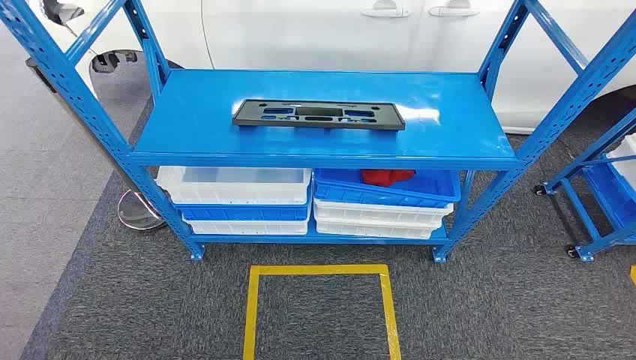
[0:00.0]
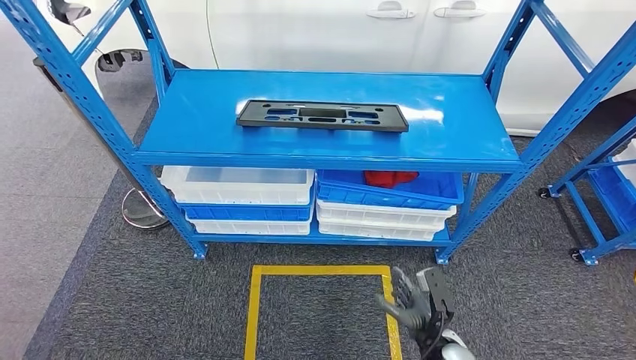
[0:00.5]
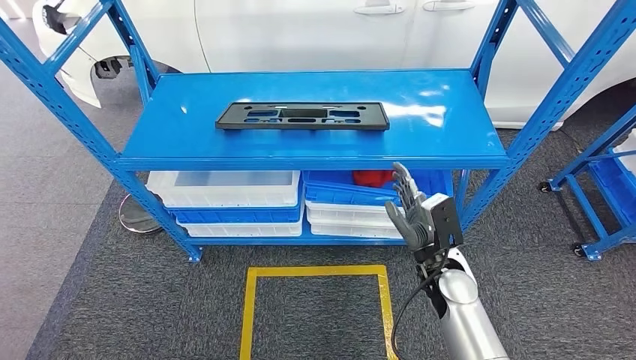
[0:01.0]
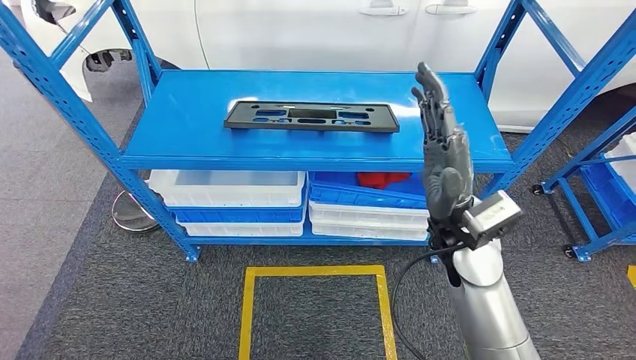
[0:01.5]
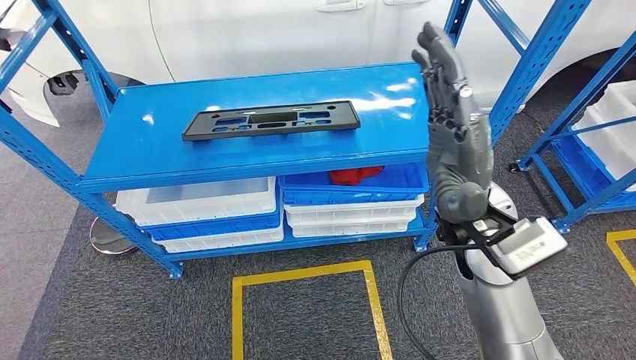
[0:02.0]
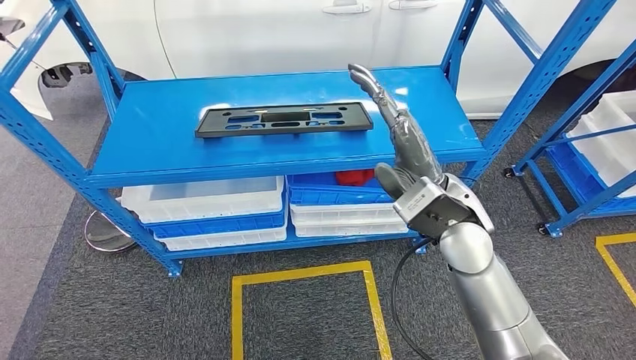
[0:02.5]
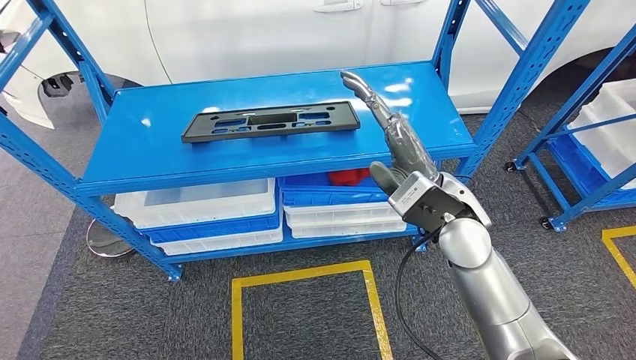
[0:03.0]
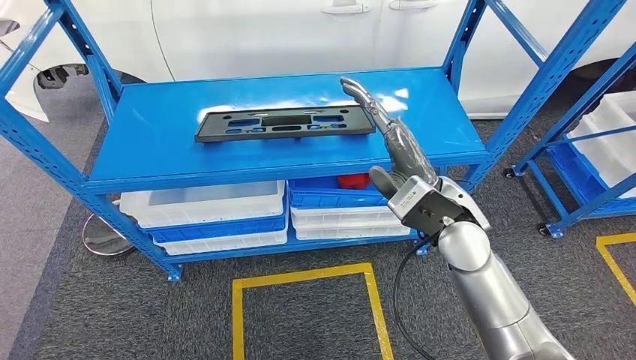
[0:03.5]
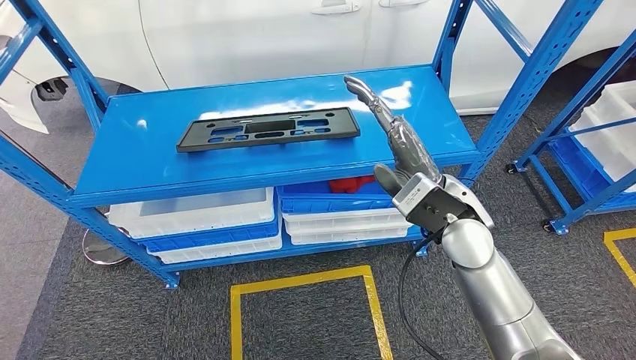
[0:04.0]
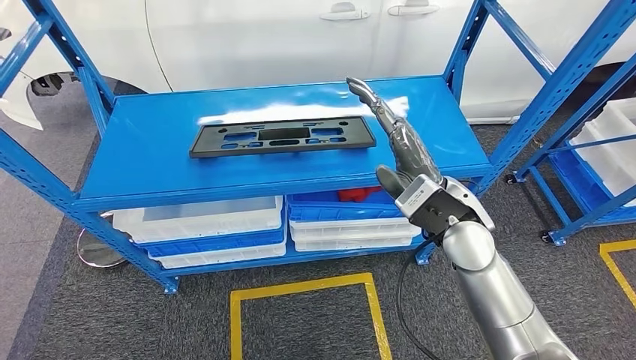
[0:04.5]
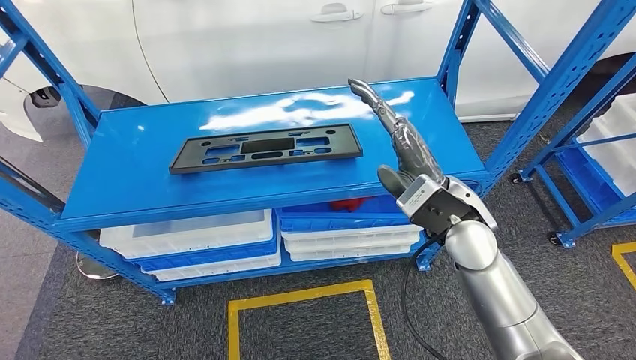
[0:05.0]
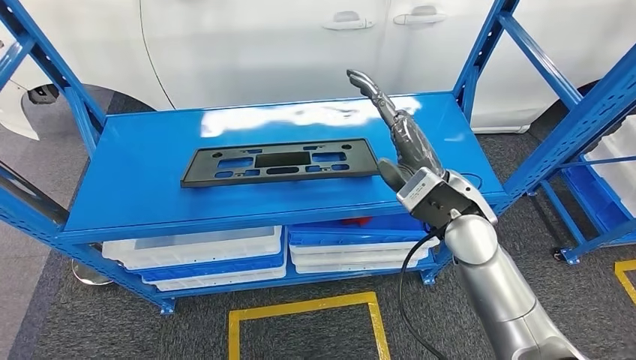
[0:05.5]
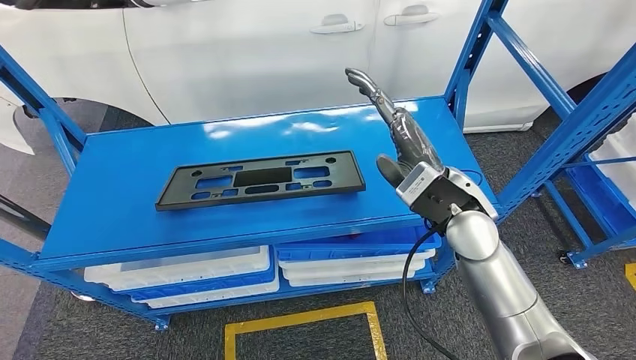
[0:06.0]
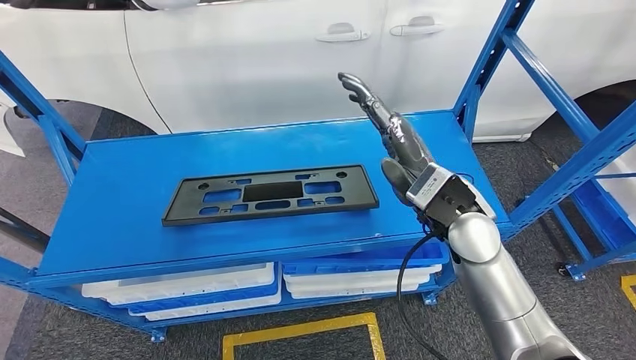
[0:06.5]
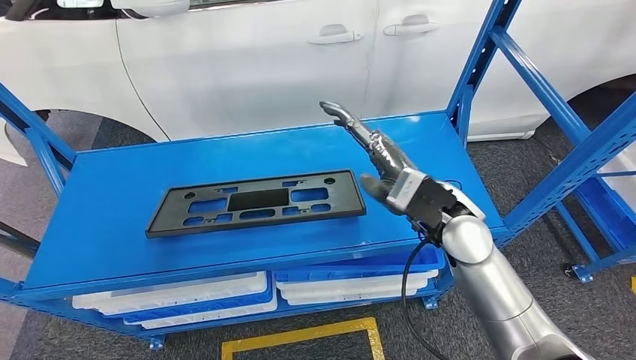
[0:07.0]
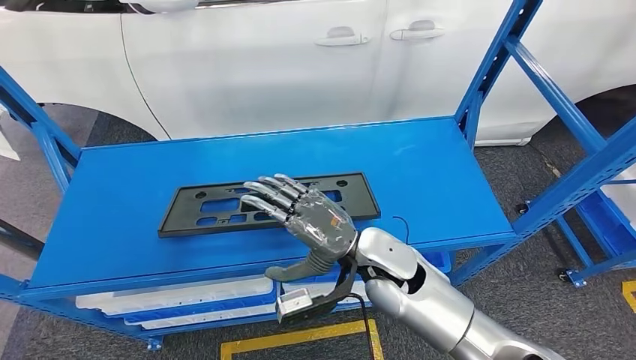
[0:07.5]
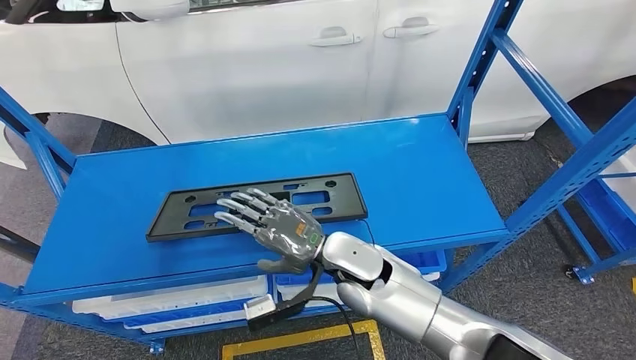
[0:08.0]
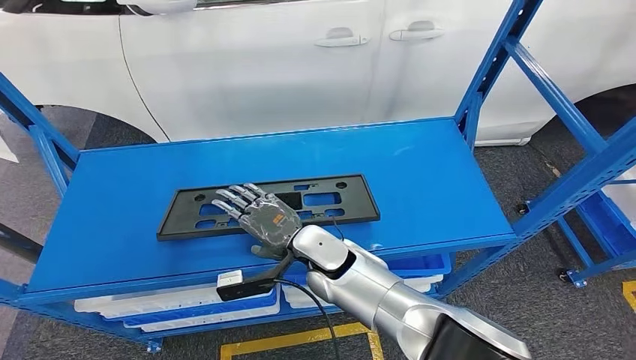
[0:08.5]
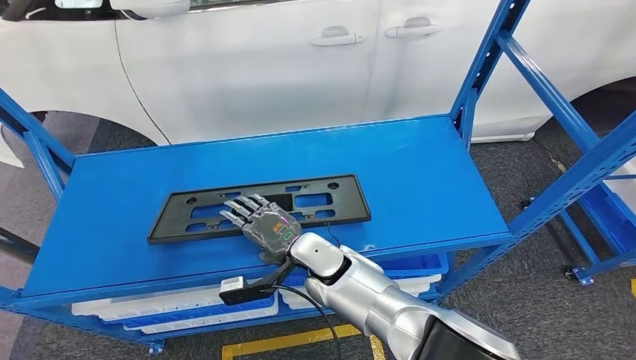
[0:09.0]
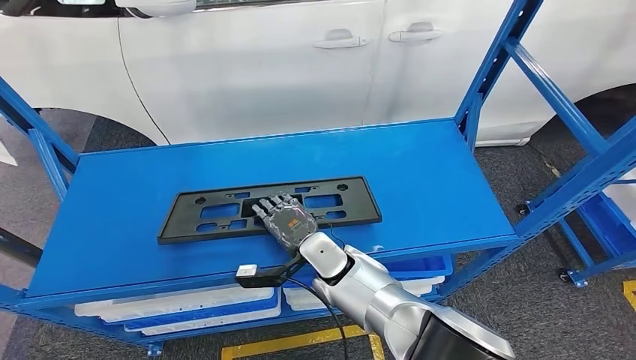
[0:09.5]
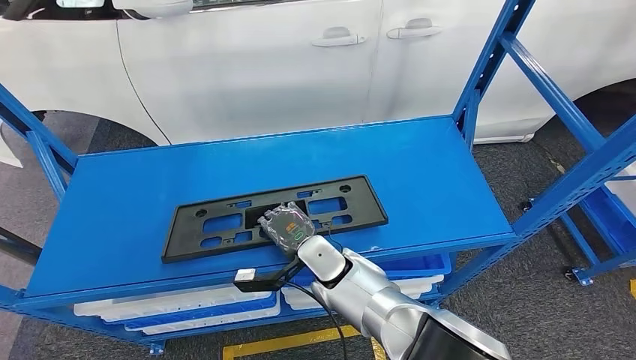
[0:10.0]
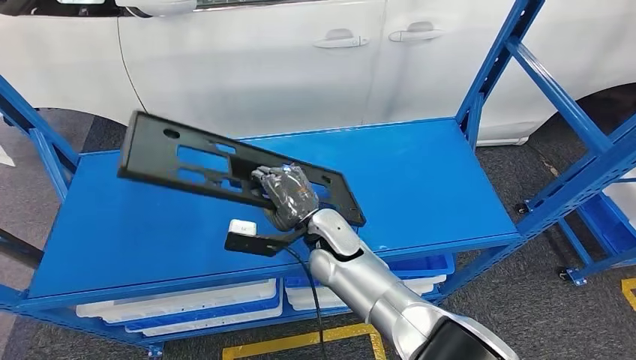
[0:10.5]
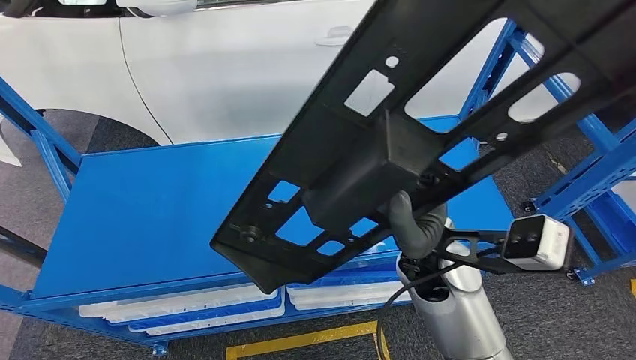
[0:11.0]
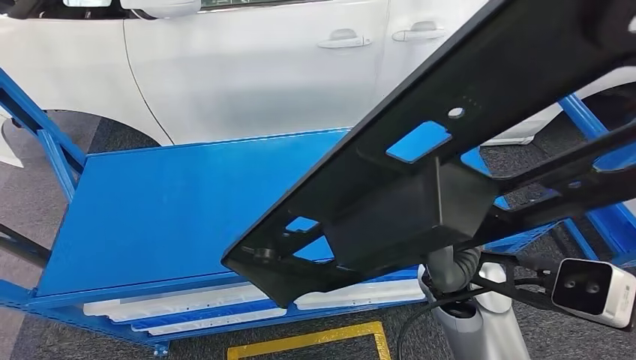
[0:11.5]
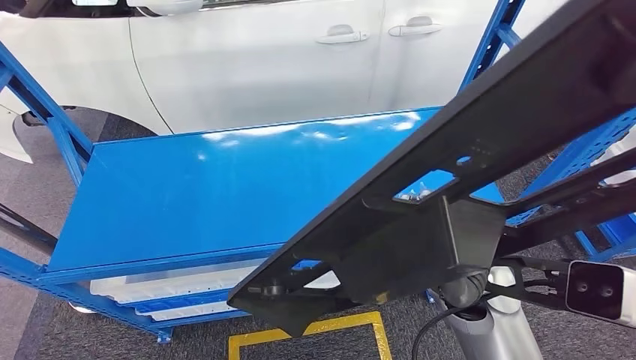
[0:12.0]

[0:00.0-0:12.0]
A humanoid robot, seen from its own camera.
0:08.0 to 0:10.0: The right hand moves downward, approximately 5 cm.

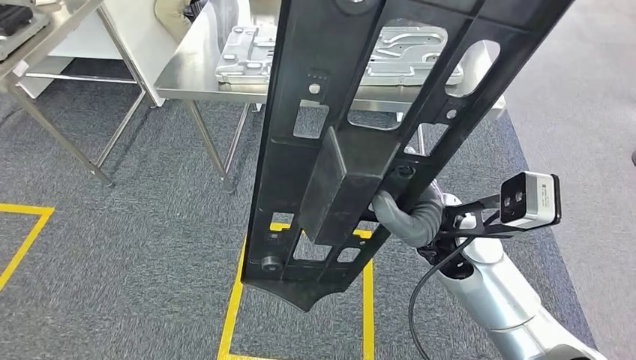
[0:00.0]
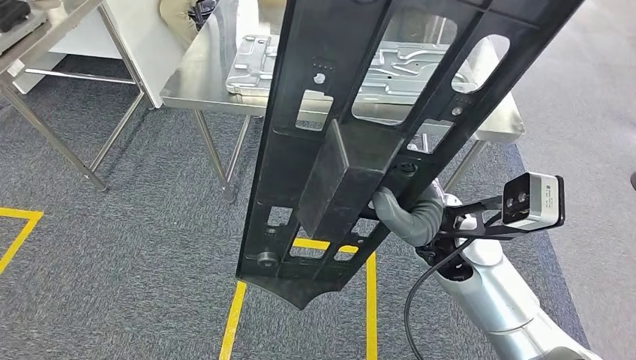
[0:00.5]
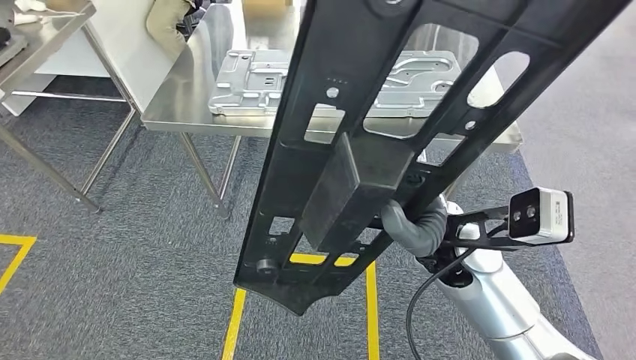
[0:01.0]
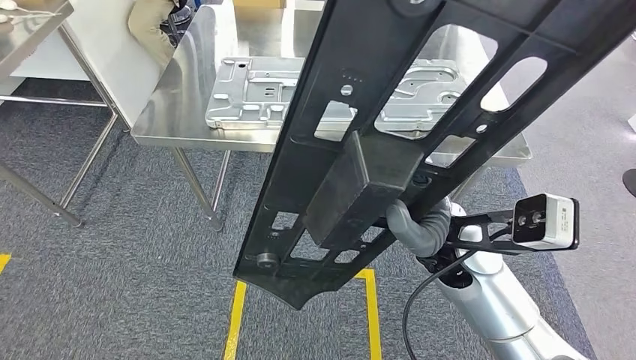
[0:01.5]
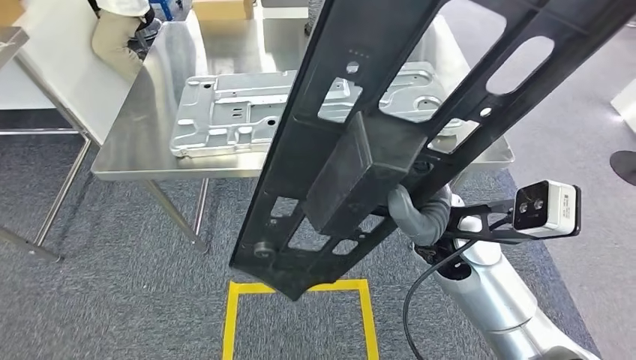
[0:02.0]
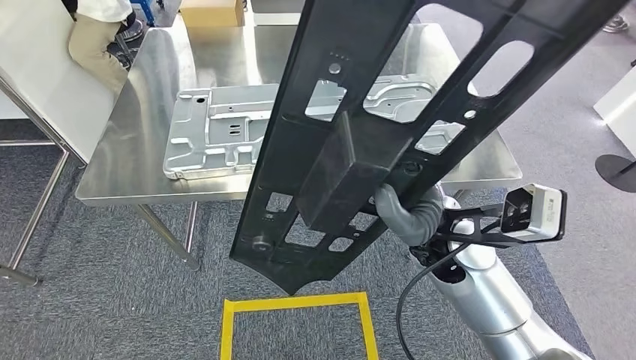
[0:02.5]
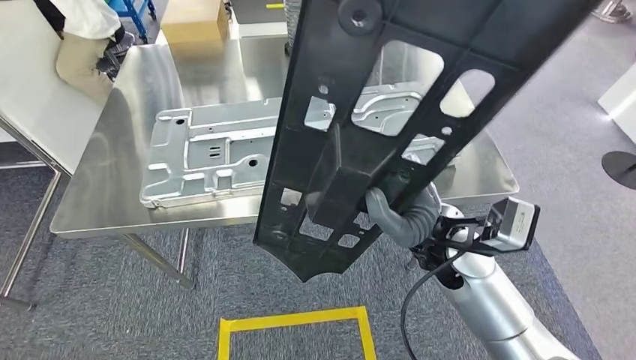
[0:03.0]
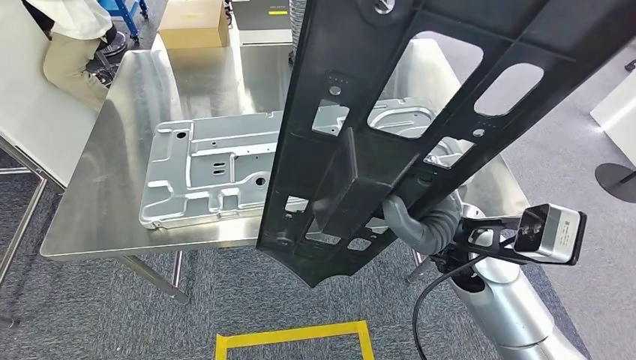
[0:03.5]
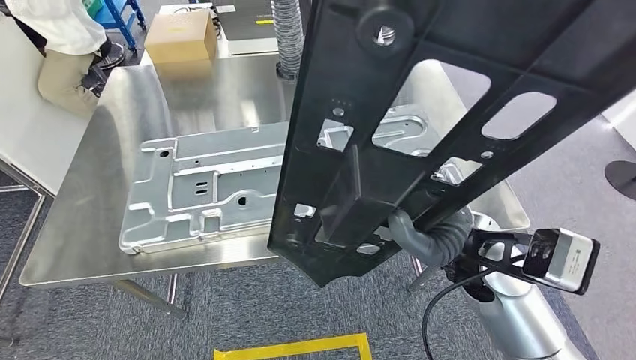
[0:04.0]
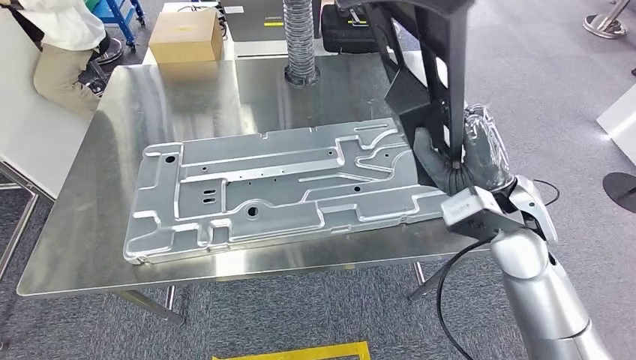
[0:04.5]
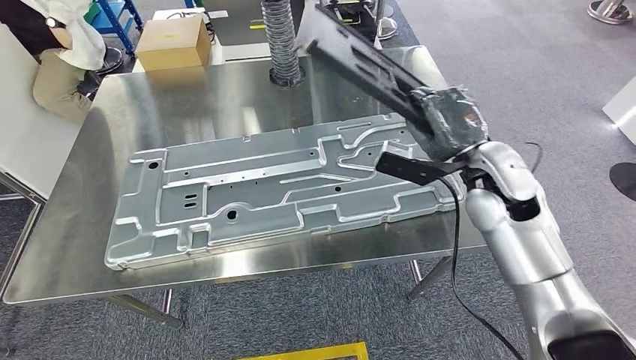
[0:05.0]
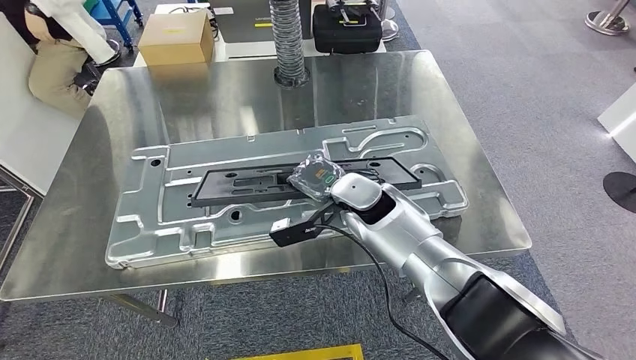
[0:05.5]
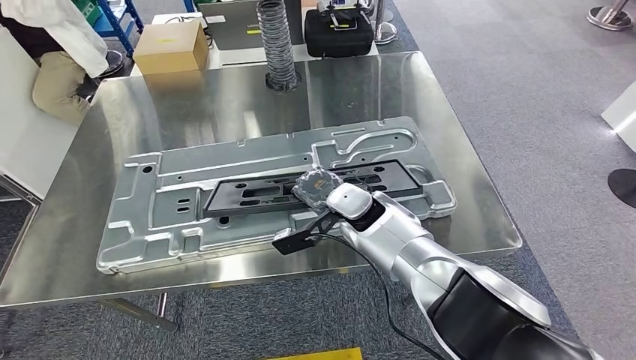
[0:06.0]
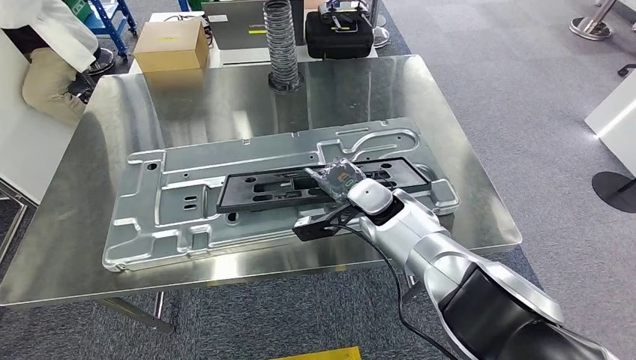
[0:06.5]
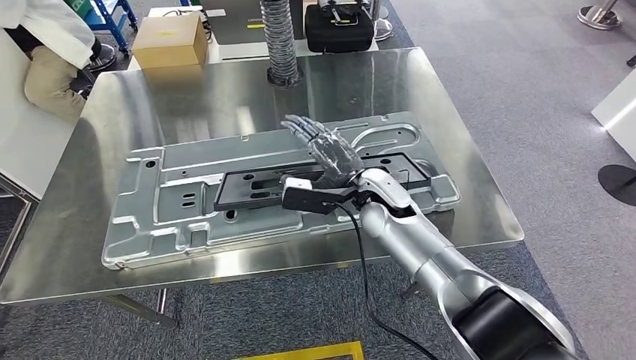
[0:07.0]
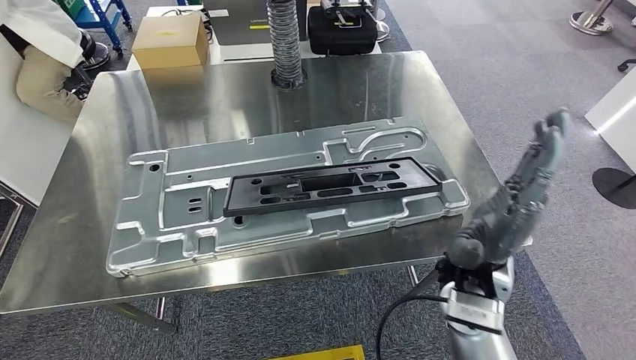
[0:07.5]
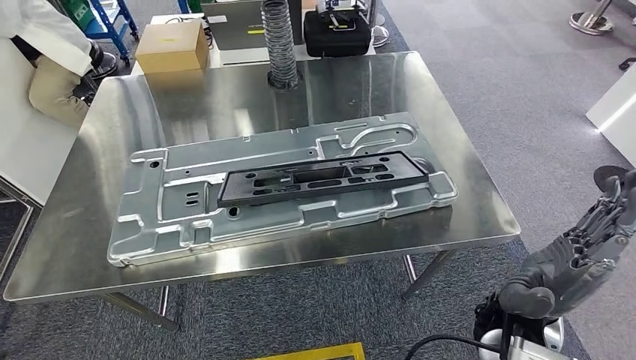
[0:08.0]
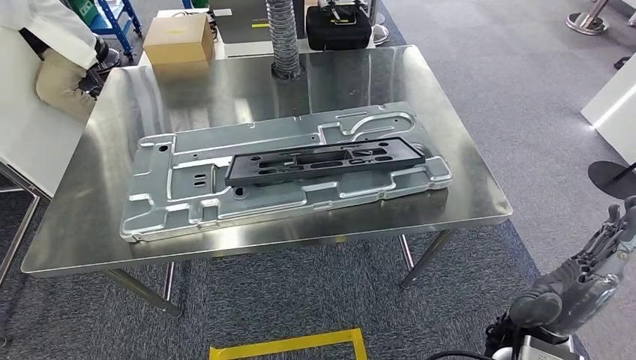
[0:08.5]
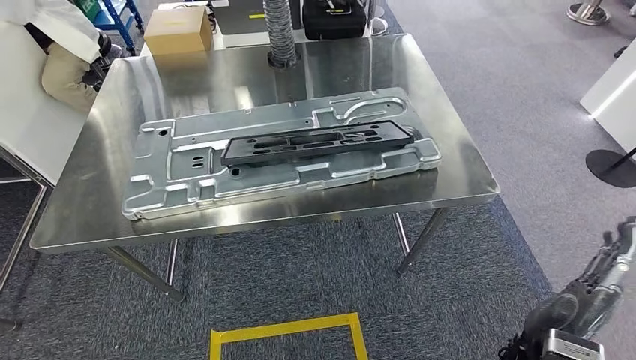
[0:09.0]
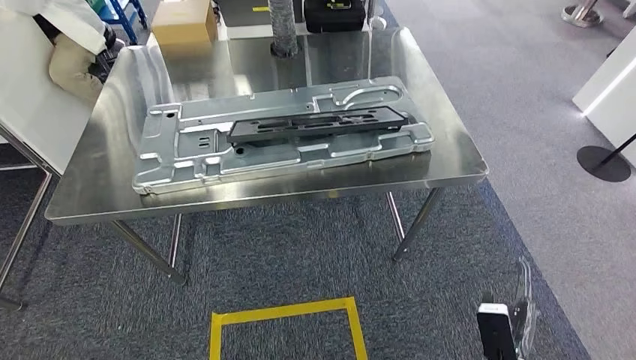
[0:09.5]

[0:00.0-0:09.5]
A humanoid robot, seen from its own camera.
Step, 0:00.0 to 0:03.5: Bring the small component to the front of the workbench.
Step, 0:04.0 to 0:08.0: Insert the small component into the corresponding slot on the workbench.
